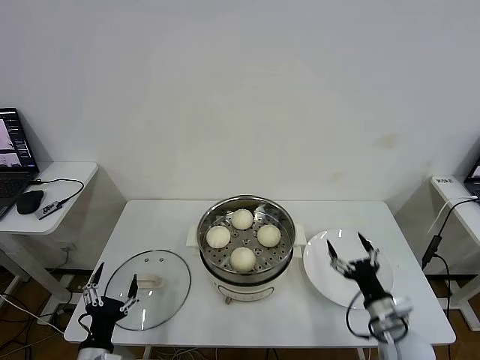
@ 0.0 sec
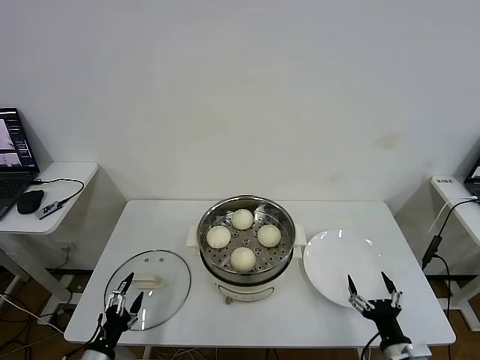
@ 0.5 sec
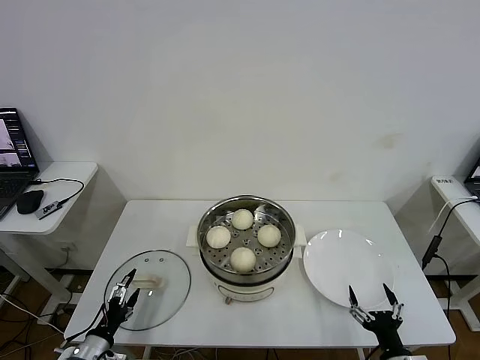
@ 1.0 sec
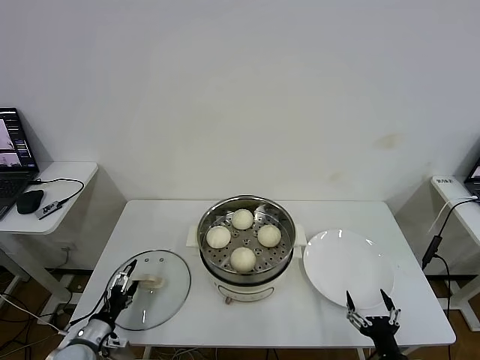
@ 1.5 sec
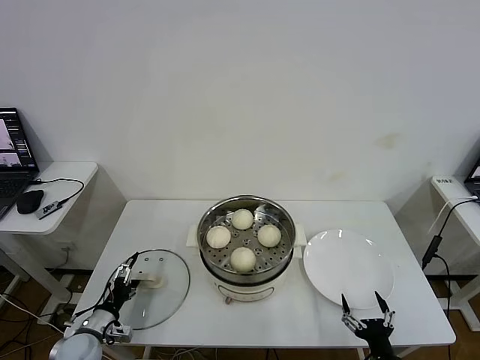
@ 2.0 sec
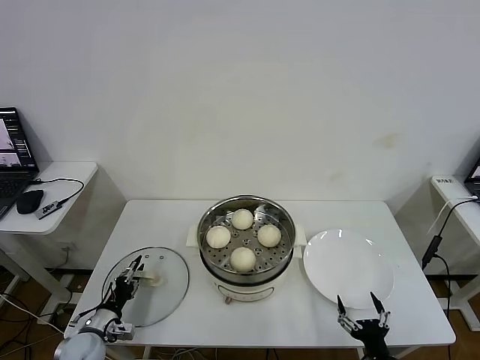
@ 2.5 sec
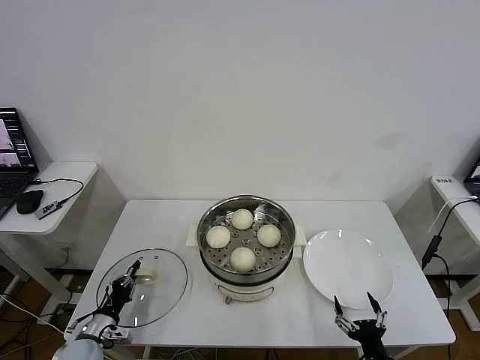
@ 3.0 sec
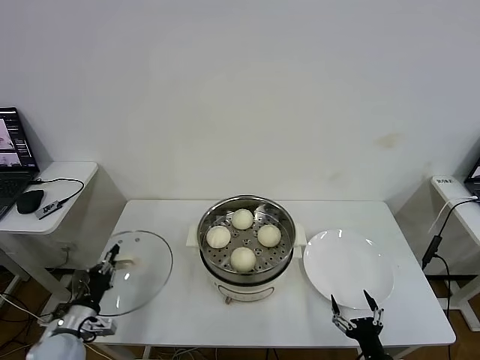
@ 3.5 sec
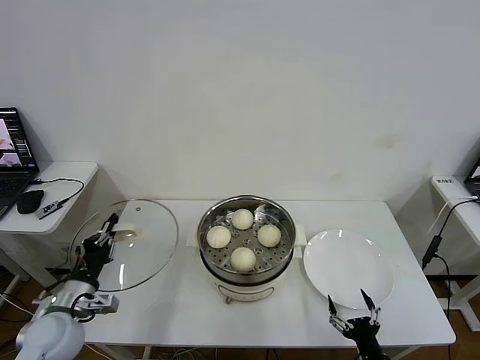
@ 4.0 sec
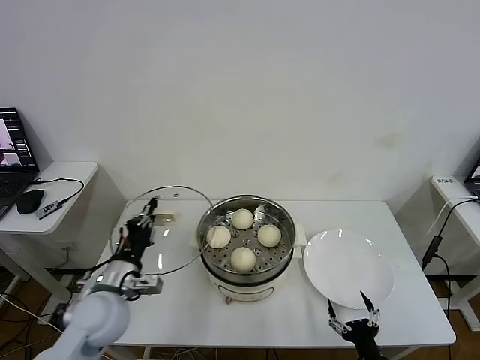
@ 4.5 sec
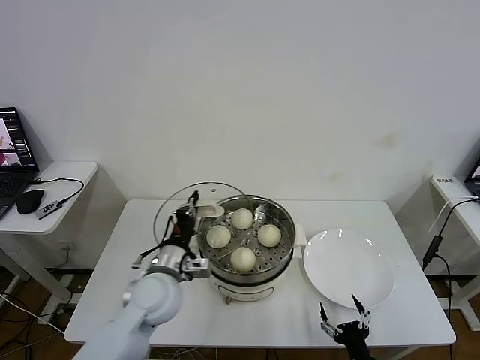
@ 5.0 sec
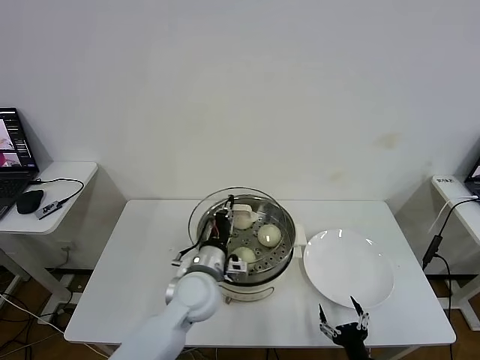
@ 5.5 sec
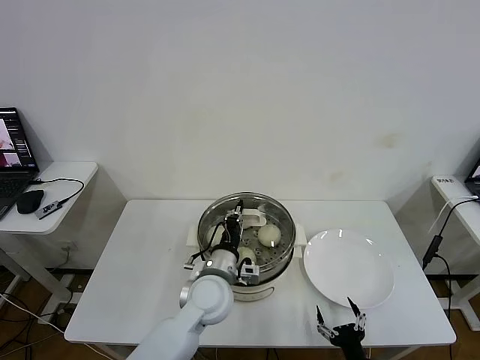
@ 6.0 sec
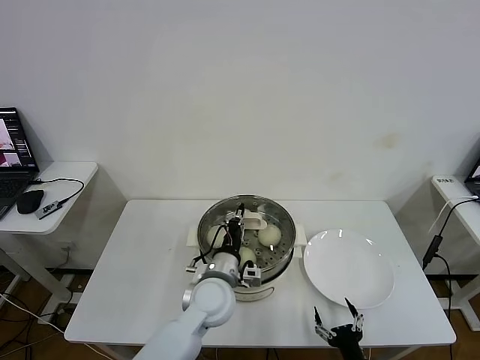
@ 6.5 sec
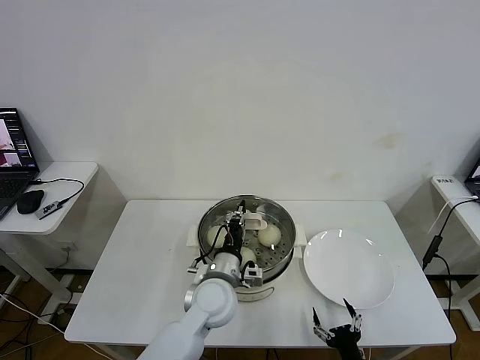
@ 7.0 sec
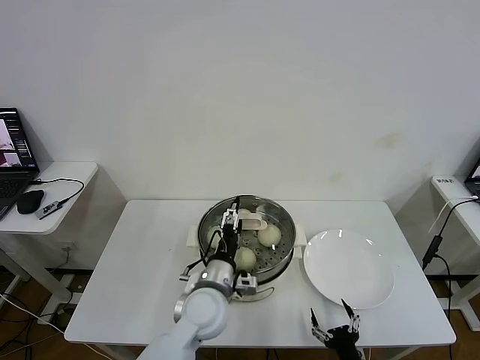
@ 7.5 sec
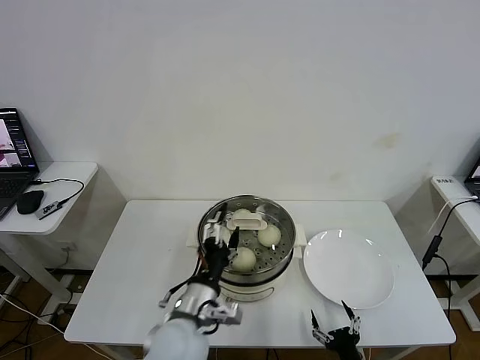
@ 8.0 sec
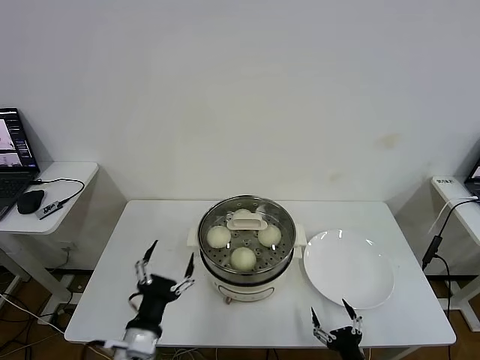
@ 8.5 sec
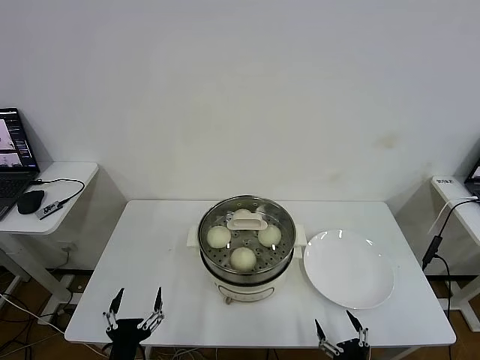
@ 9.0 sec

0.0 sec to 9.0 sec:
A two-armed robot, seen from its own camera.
Task of the whole recording: take steamed baozi put them in steamer then cover it.
Step, 0.0 sec to 3.0 sec: Grasp the pot lid with left gripper.
Step, 3.5 sec to 7.0 sec: Place the pot lid on the steamer with left gripper.
0.0 sec to 2.0 sec: The right gripper moves backward and downward, approximately 15 cm. The left gripper heads forward, to the left and downward, covering about 15 cm.
2.0 sec to 4.5 sec: The left gripper shifts roughly 20 cm upward and to the right, and closes.
4.5 sec to 7.0 sec: The left gripper shifts some 20 cm to the right.
7.0 sec to 9.0 sec: The left gripper shifts approximately 30 cm backward and to the left, and opens its fingers.
